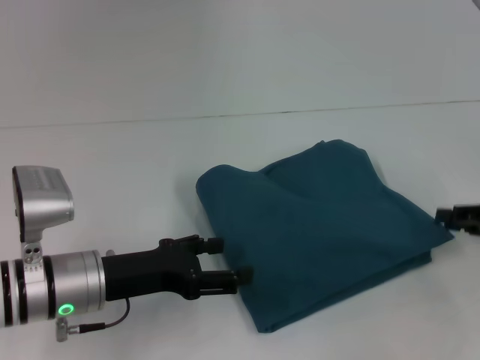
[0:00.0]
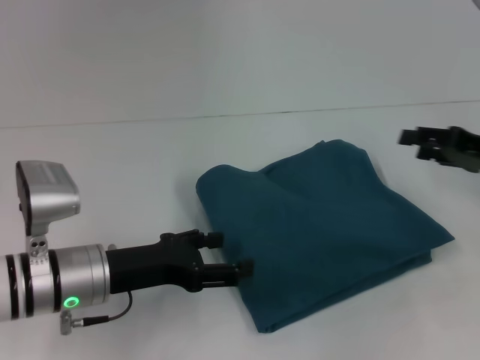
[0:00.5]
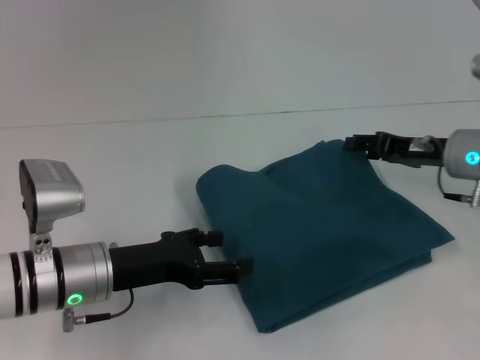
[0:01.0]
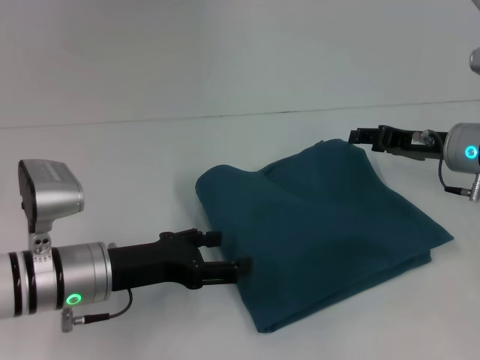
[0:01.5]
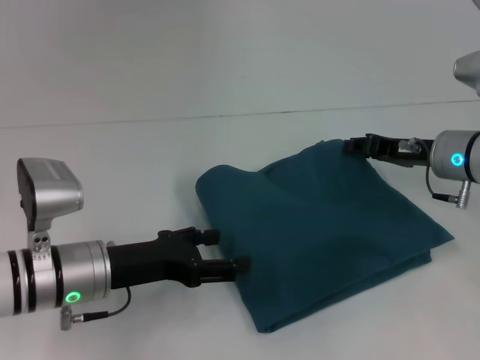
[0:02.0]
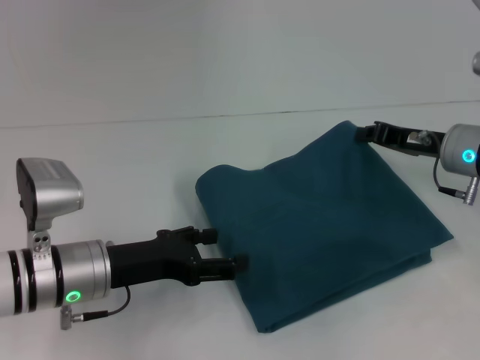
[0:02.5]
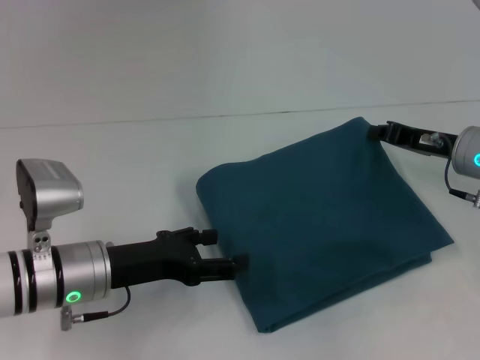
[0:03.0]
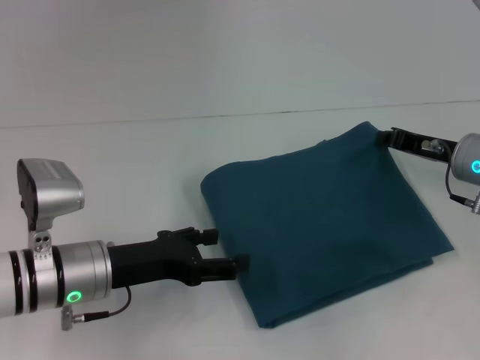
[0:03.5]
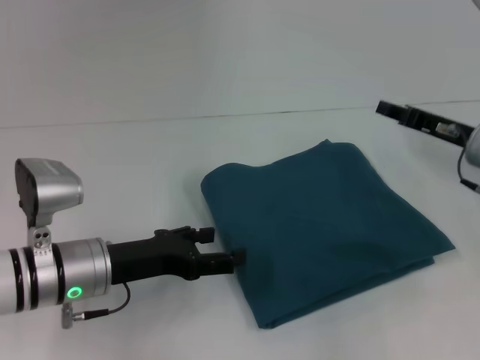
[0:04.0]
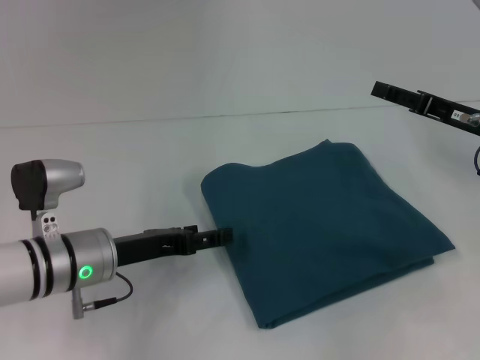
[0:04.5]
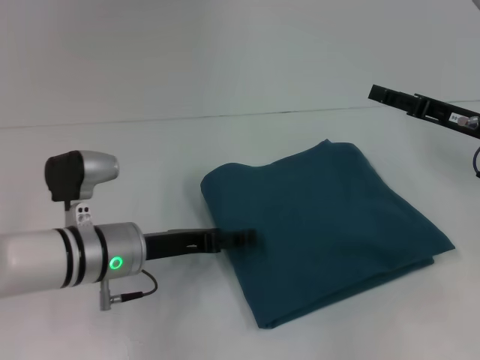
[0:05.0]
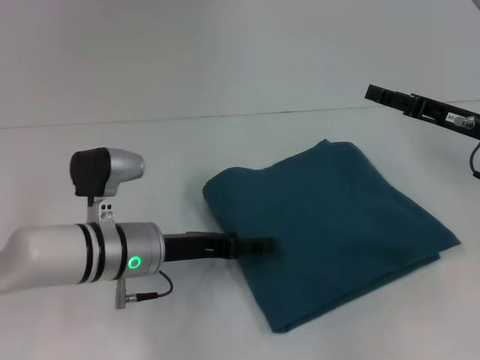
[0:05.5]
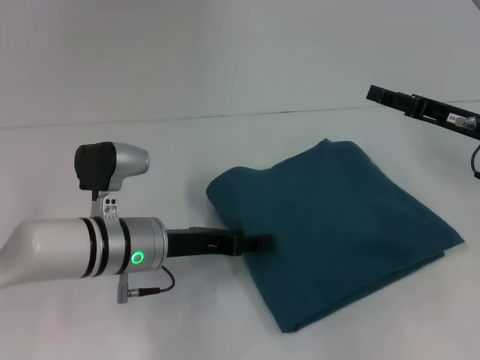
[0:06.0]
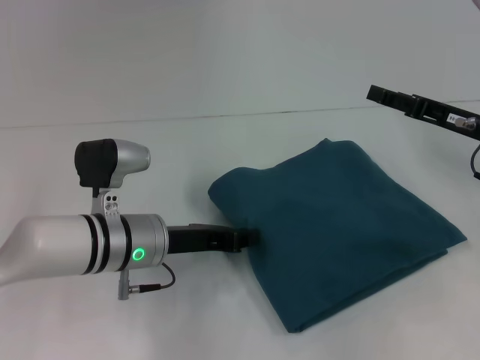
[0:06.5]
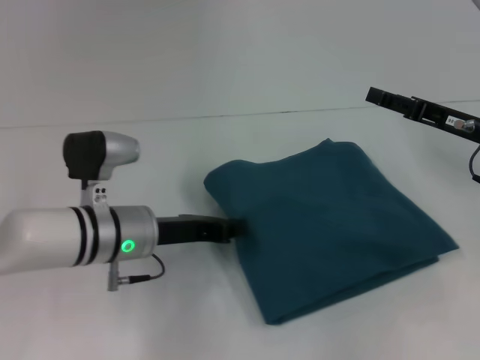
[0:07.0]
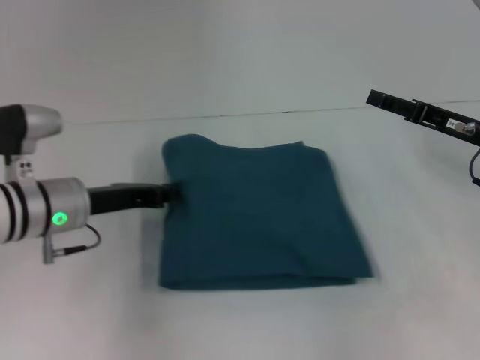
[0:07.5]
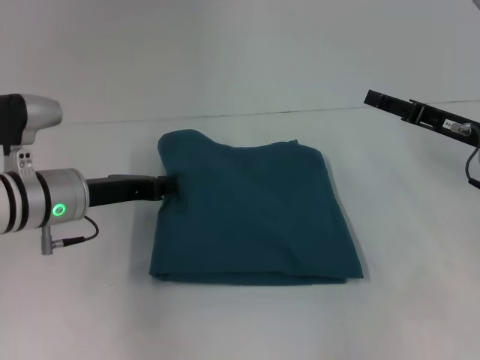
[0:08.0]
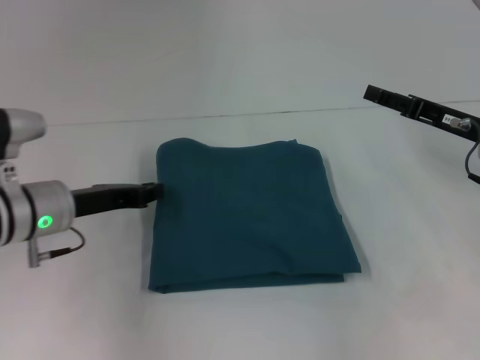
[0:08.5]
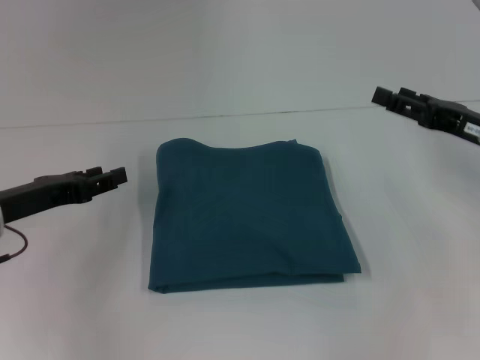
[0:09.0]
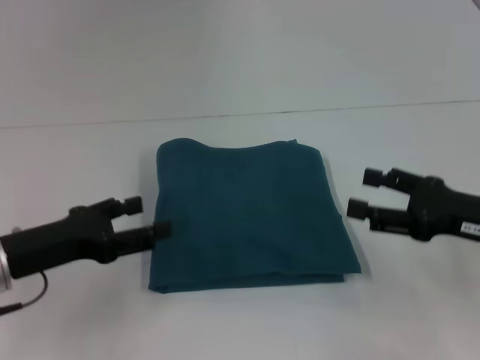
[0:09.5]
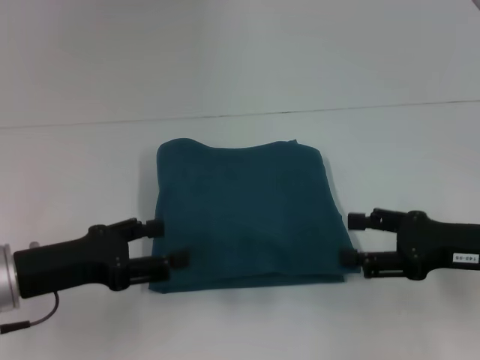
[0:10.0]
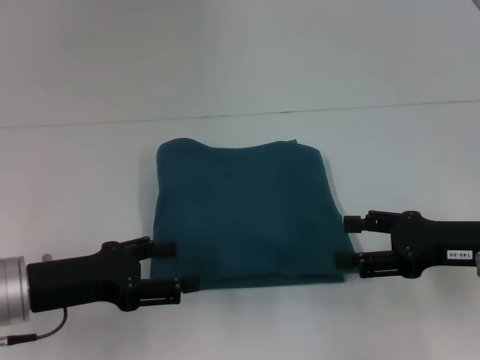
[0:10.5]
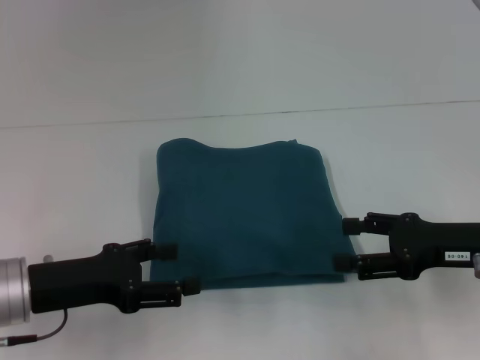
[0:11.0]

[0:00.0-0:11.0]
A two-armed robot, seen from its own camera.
0:00.0 to 0:02.0: The right gripper moves to the left and forward, roughly 15 cm.
0:02.0 to 0:03.5: The right gripper closes its fingers.
0:03.5 to 0:05.5: The left gripper shifts by some 5 cm, while the right gripper opens its fingers.
0:05.5 to 0:07.5: The left gripper shifts about 5 cm to the left, and closes its fingers.
0:07.5 to 0:09.0: The left gripper is displaced to the left by roughly 5 cm, and opens its fingers.
0:09.0 to 0:11.0: The two grippers go roughly 5 cm backward. The left gripper opens up.

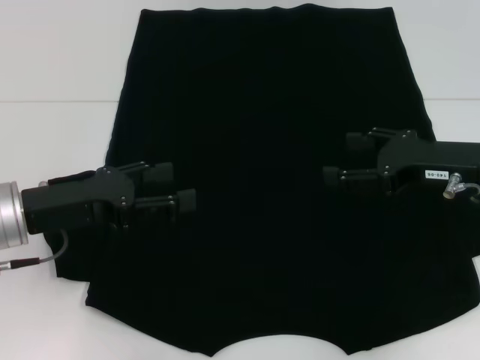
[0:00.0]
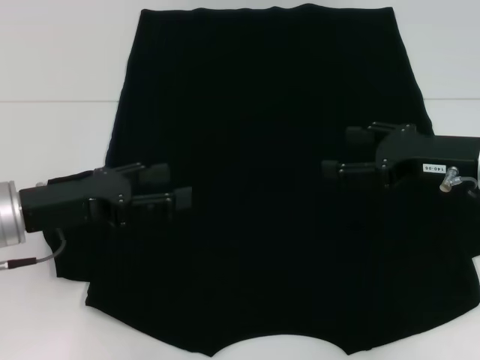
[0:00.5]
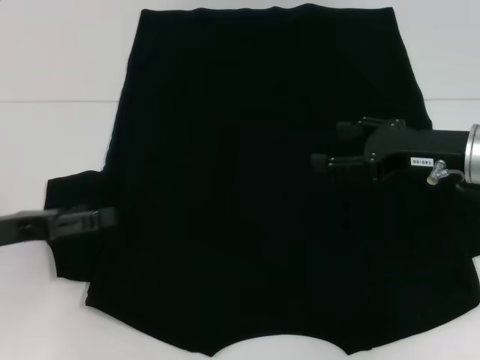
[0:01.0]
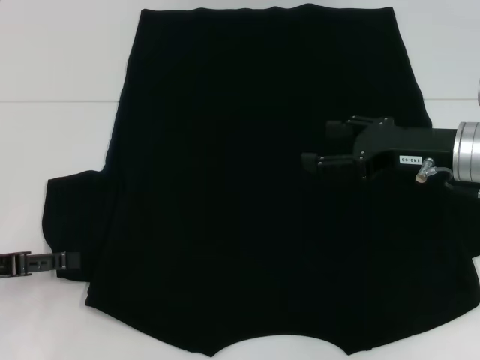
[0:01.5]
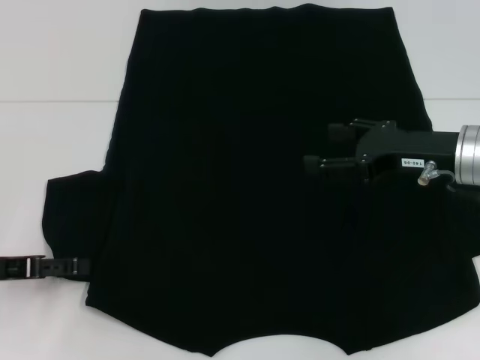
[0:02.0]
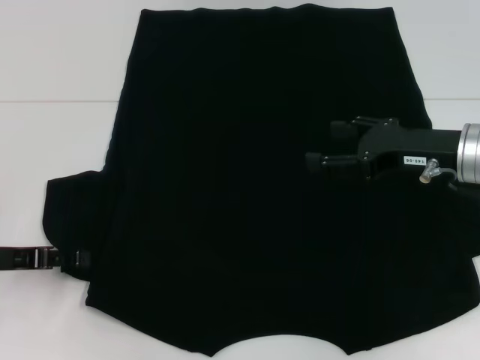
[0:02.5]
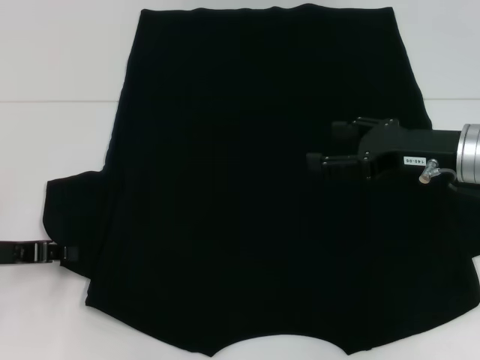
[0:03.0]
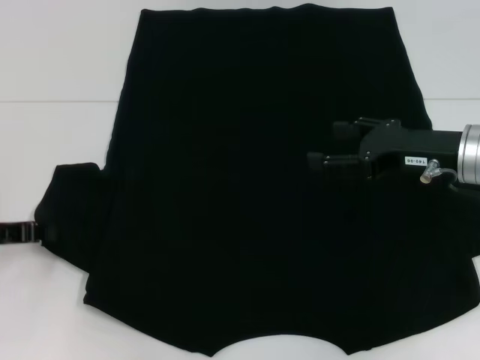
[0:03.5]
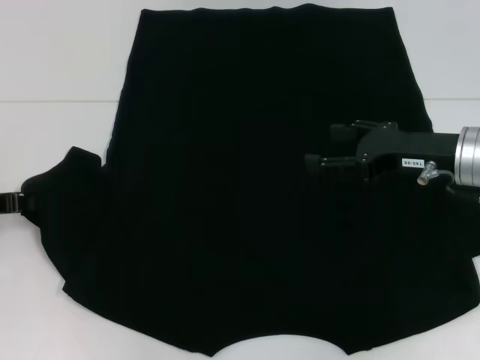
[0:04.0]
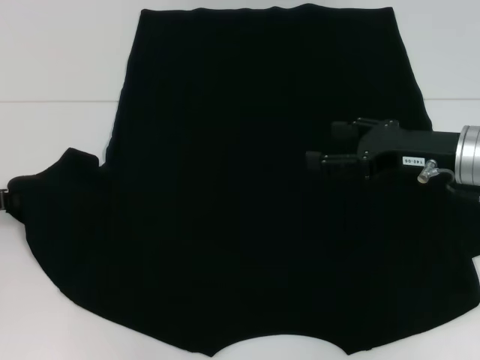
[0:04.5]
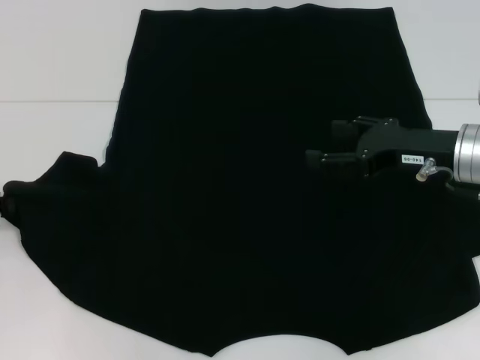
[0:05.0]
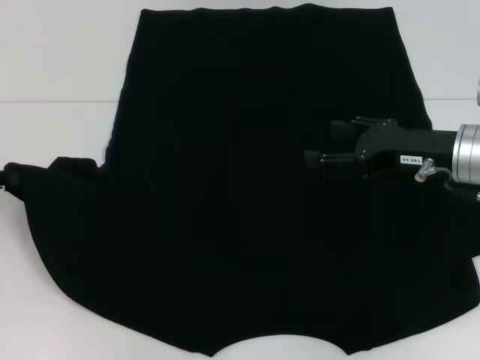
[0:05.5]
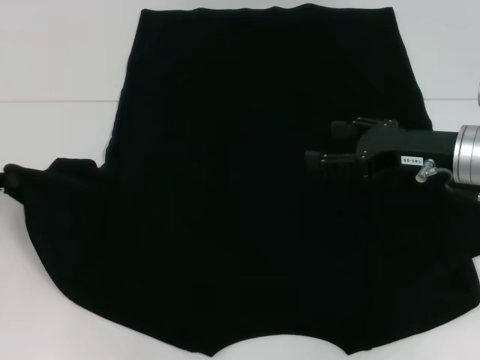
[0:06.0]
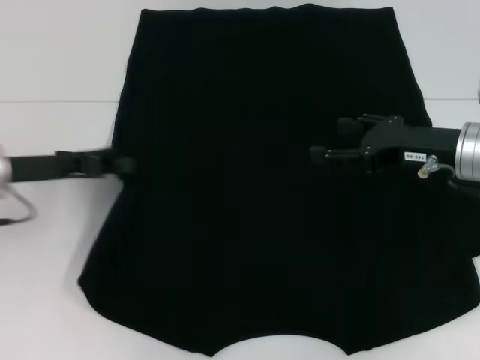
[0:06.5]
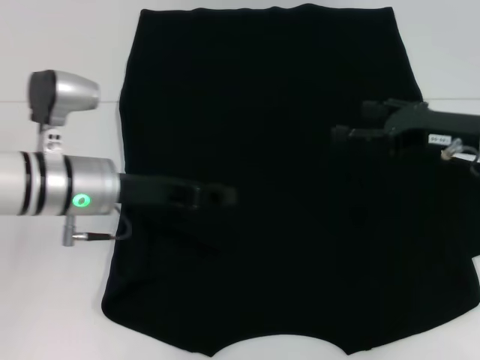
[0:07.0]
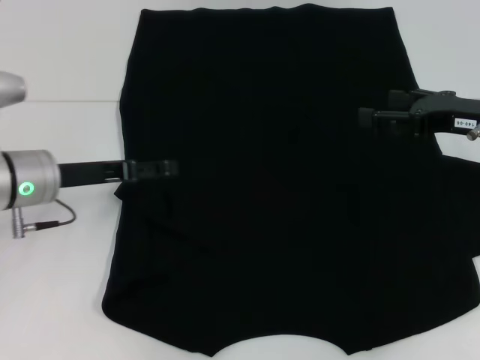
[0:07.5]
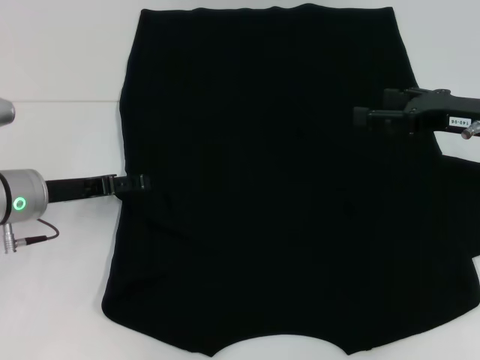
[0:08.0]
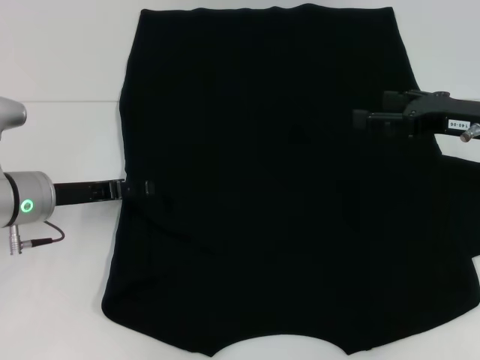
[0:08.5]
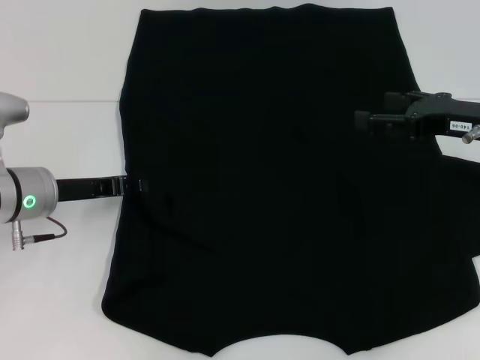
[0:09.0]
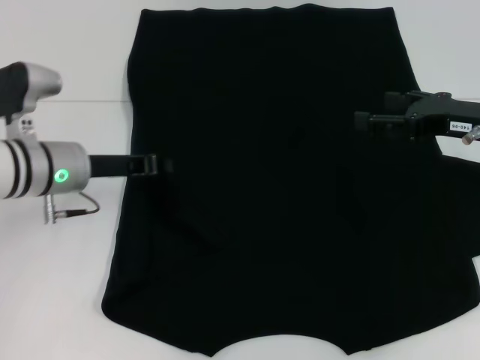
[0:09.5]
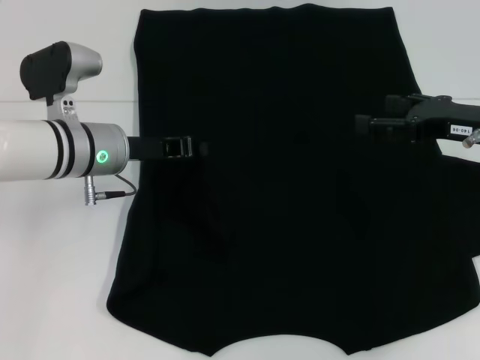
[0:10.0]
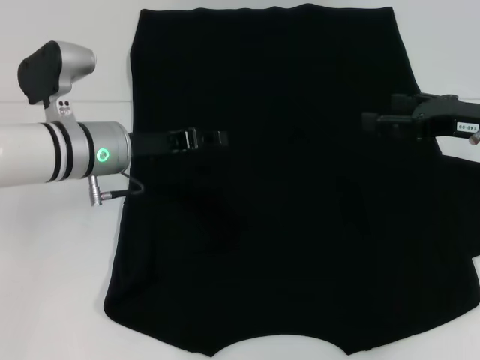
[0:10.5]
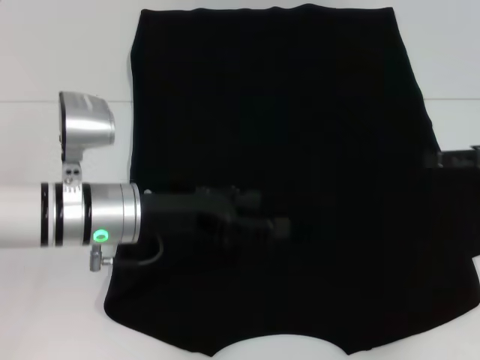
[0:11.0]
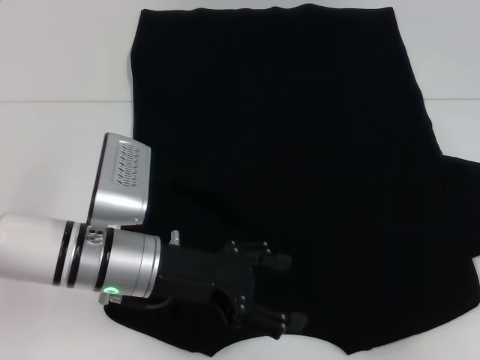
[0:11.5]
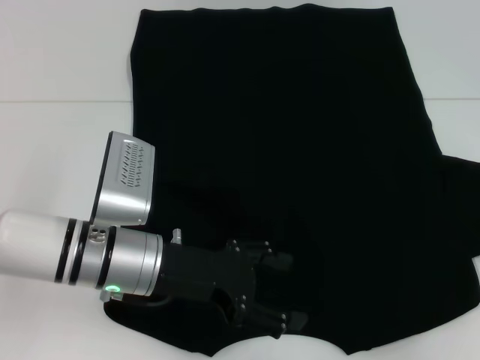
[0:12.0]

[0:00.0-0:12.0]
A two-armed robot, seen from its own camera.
Step, 0:00.0 to 0:10.5: Fold the bottom left sleeve with your left hand.
0:00.0 to 0:02.0: The left gripper moves to the left, some 10 cm.
0:02.0 to 0:04.0: The left gripper moves forward, some 5 cm, and closes.
0:04.0 to 0:06.0: The grippers stay close to where they were, moving slightly.
0:06.0 to 0:08.0: The left gripper heads to the right, covering approximately 10 cm, and opens up. Meanwhile the right gripper ends up approximately 5 cm from where it was.
0:08.0 to 0:10.0: The left gripper goes some 10 cm to the right, and closes its fingers.
0:10.0 to 0:12.0: The right gripper heads to the right and backward, covering some 15 cm; the left gripper goes about 10 cm backward, and opens.

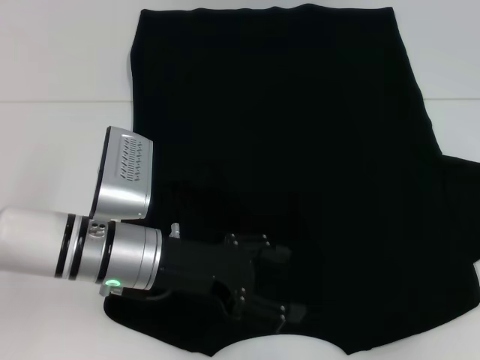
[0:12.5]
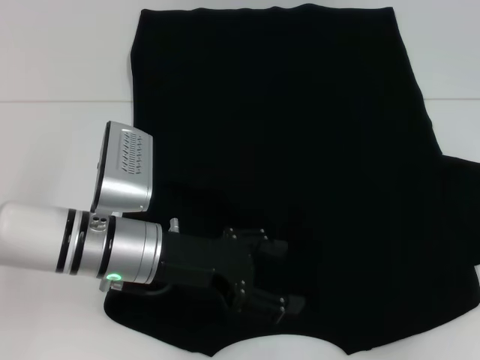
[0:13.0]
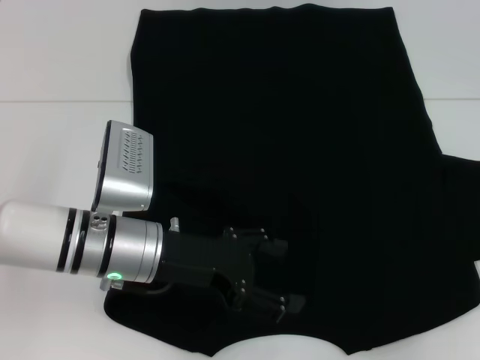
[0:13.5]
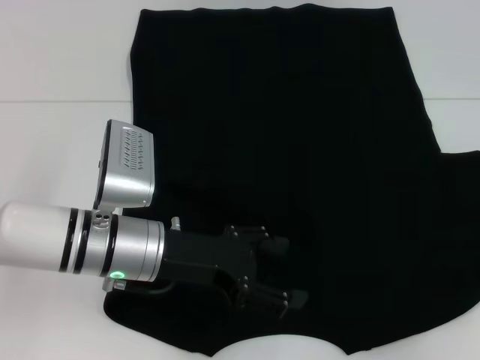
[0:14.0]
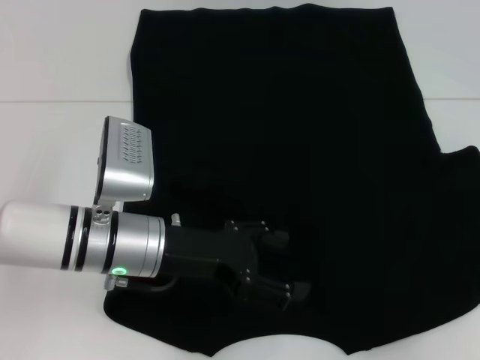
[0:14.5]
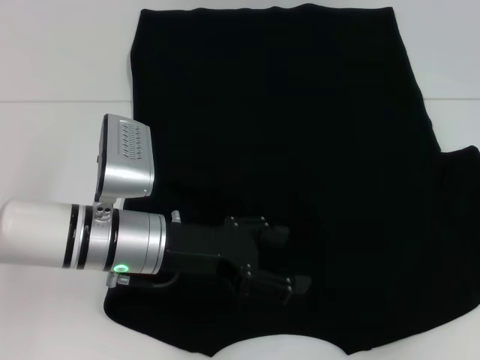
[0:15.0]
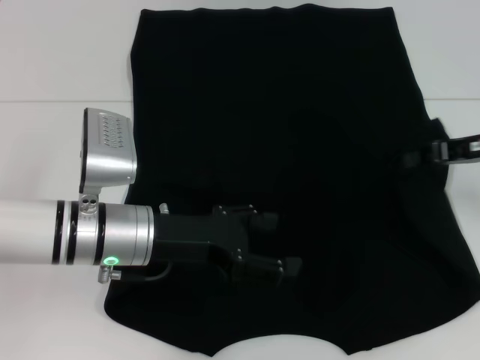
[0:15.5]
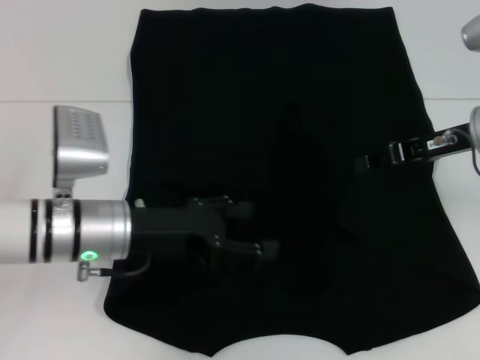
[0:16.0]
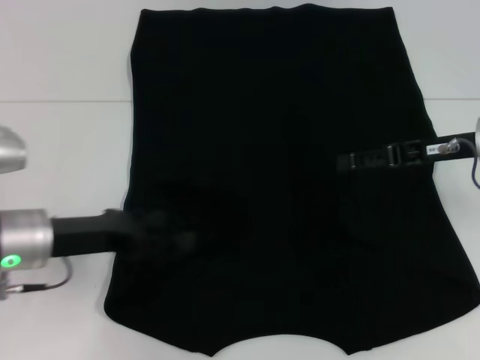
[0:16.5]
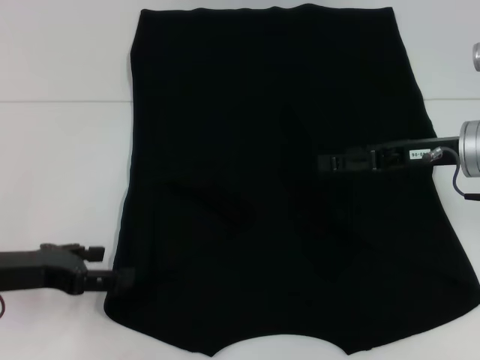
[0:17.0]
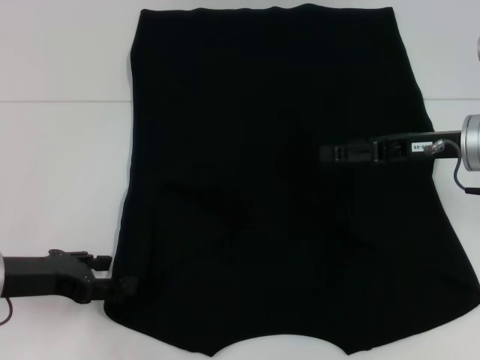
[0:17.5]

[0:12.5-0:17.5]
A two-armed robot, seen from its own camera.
Step, 0:12.5 to 0:16.0: Fold the bottom right sleeve with your right hand.
0:12.5 to 0:15.0: The right gripper closes up.
0:15.0 to 0:17.5: Both grippers travel together to the left, approximately 15 cm. The right gripper opens up.
